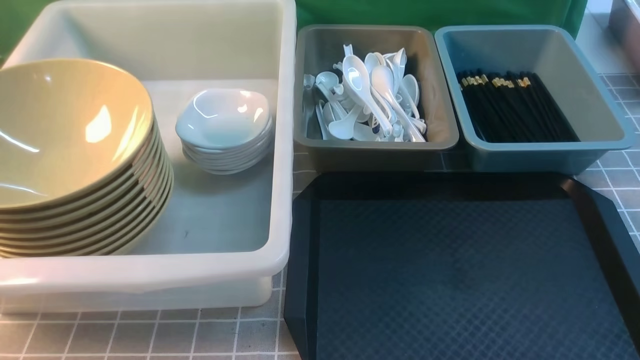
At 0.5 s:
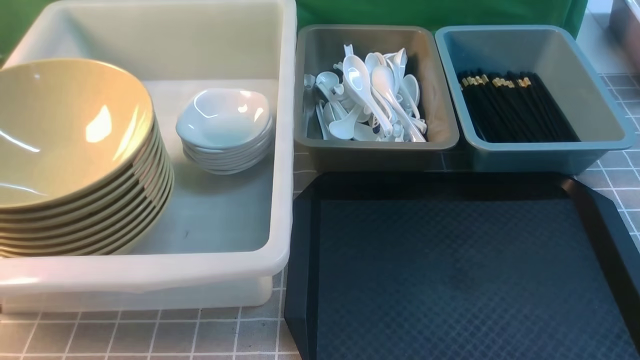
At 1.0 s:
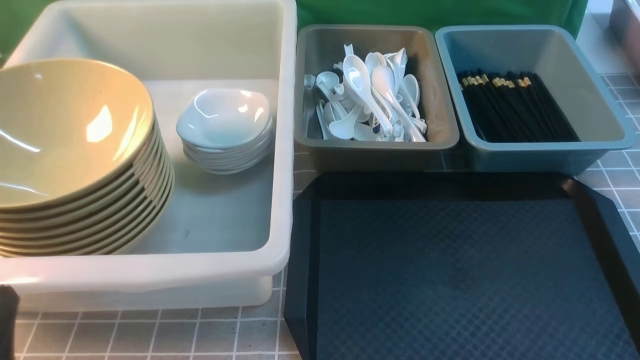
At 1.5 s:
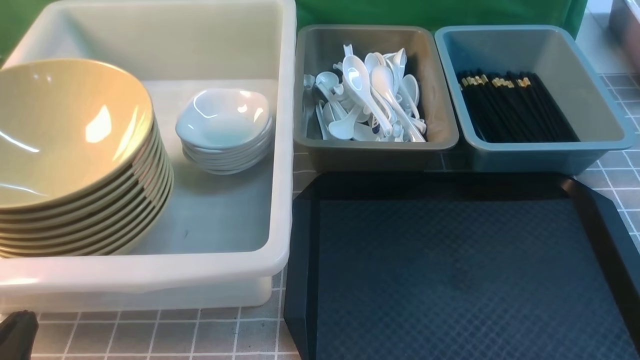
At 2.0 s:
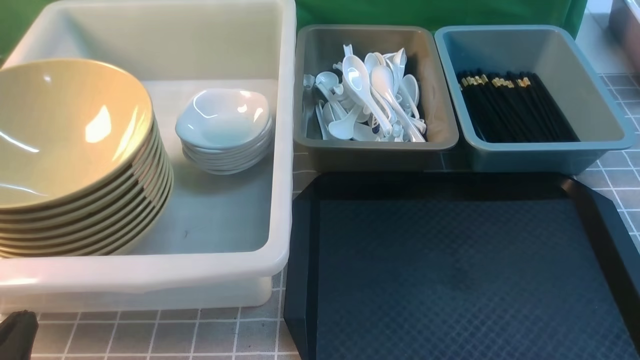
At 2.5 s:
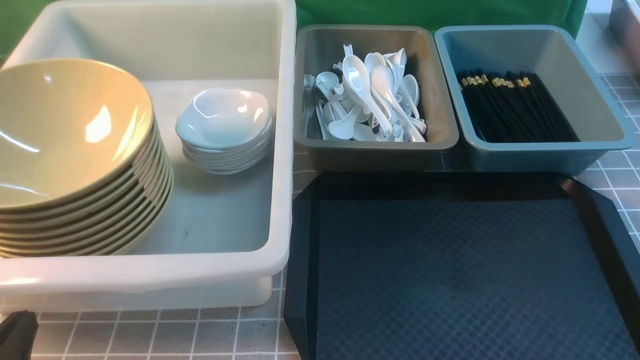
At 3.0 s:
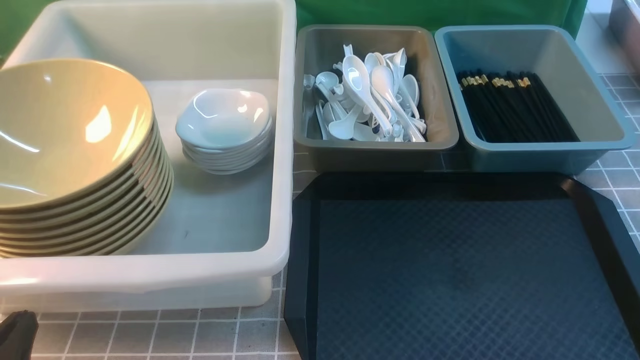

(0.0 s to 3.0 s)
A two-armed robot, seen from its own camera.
Task of the whole recording: on grey table put chopsticks spoon bowls plates into blue grey white boxes.
0.0 s - 1.5 s: The left gripper shifts some 10 cm downward.
1.5 s - 3.0 s: Both grippers stay about where they are.
